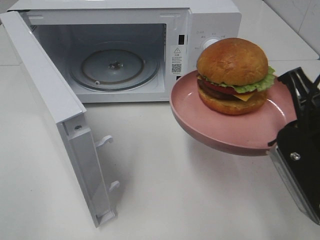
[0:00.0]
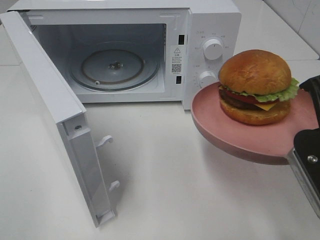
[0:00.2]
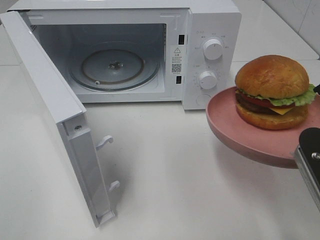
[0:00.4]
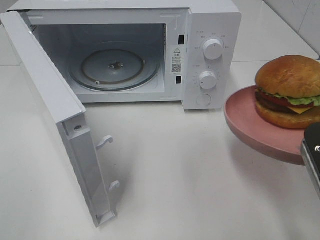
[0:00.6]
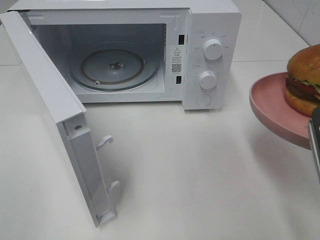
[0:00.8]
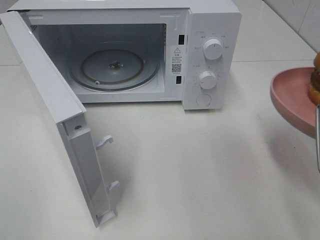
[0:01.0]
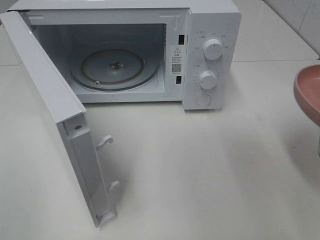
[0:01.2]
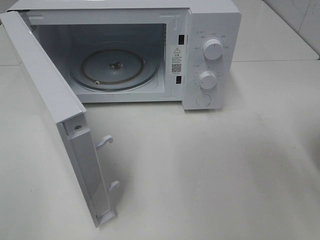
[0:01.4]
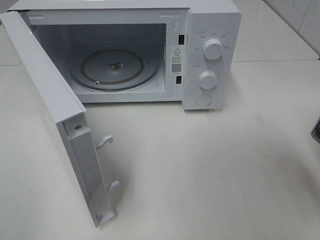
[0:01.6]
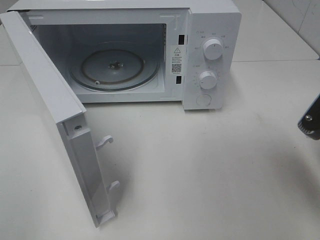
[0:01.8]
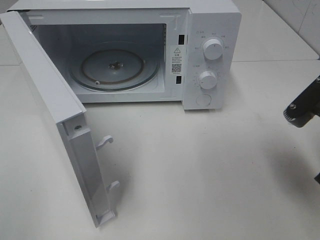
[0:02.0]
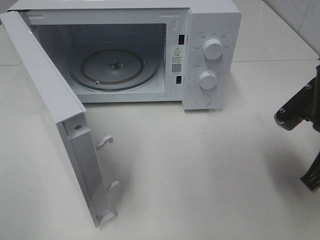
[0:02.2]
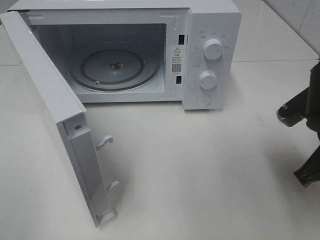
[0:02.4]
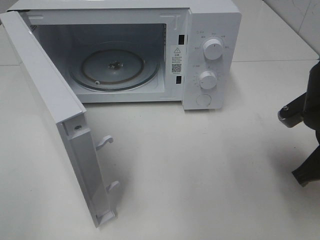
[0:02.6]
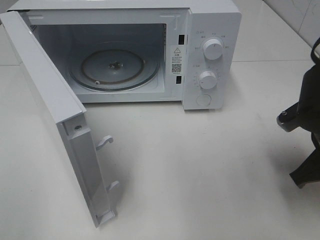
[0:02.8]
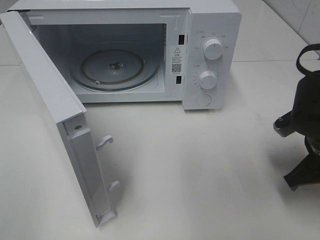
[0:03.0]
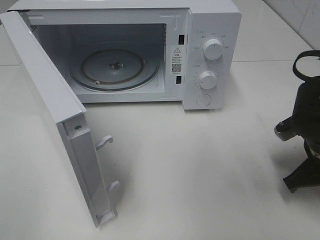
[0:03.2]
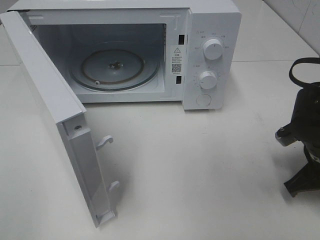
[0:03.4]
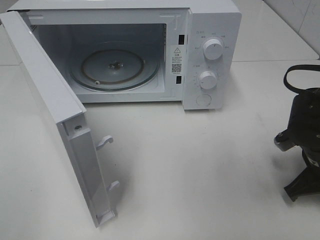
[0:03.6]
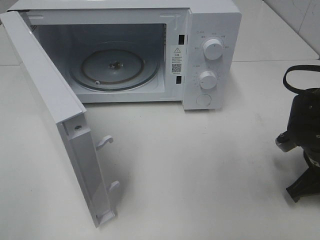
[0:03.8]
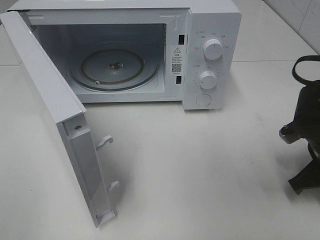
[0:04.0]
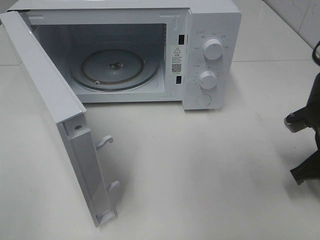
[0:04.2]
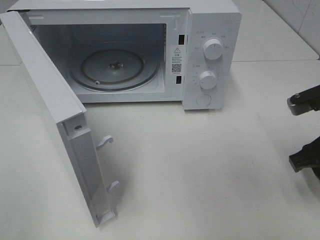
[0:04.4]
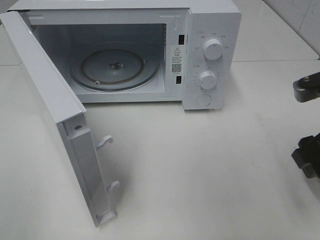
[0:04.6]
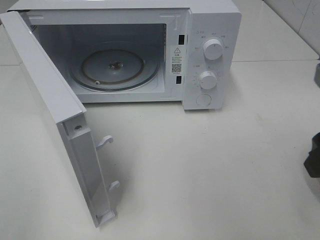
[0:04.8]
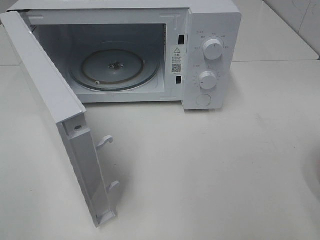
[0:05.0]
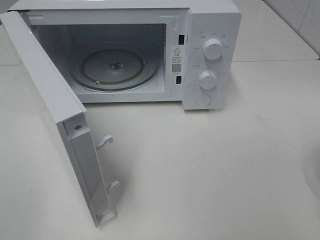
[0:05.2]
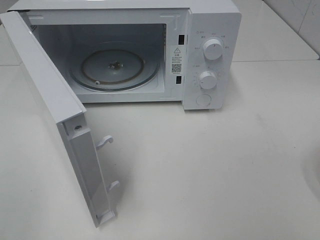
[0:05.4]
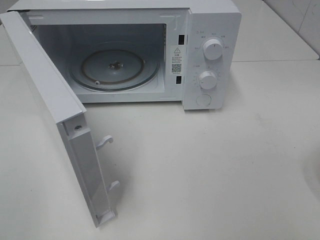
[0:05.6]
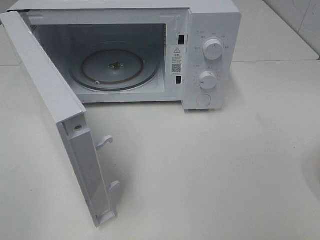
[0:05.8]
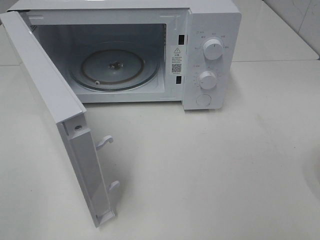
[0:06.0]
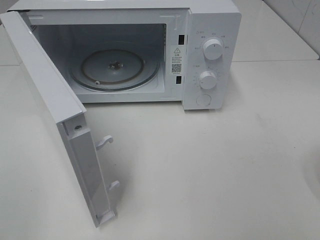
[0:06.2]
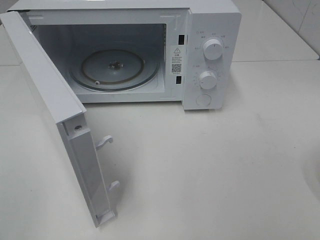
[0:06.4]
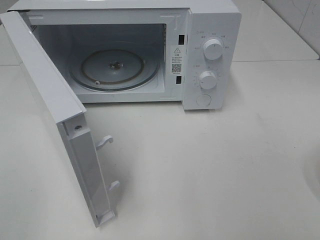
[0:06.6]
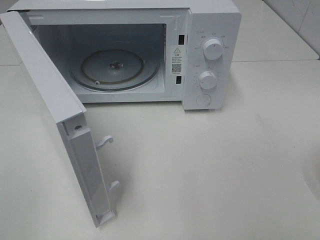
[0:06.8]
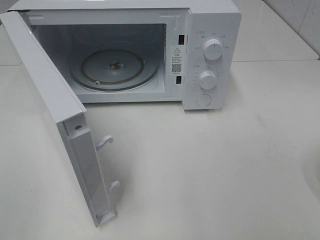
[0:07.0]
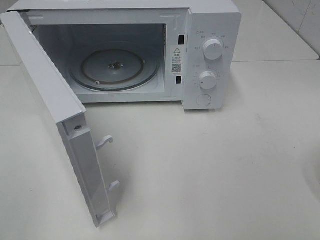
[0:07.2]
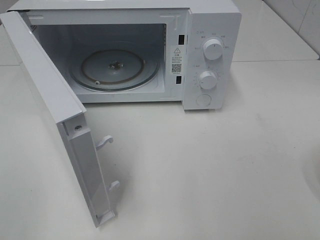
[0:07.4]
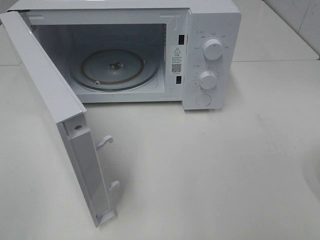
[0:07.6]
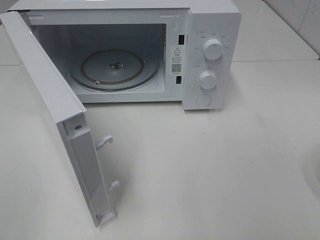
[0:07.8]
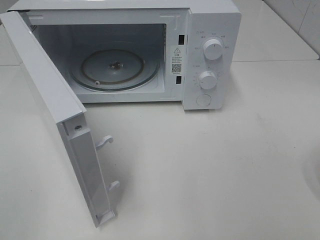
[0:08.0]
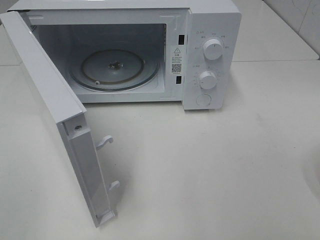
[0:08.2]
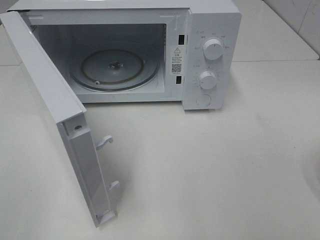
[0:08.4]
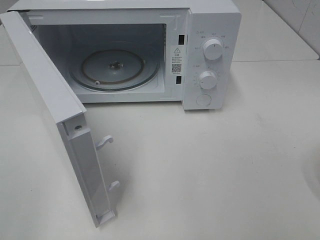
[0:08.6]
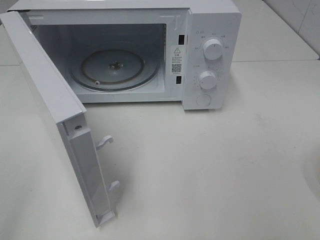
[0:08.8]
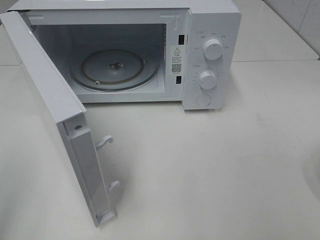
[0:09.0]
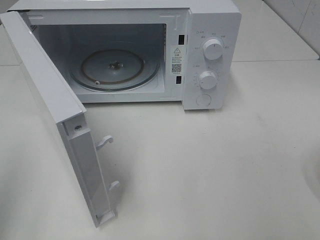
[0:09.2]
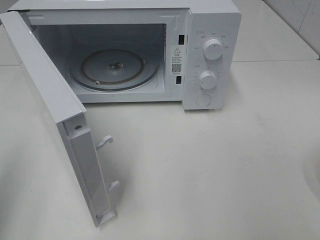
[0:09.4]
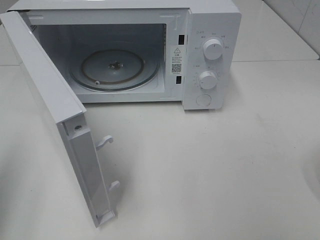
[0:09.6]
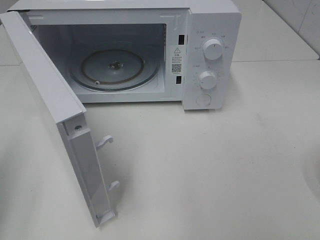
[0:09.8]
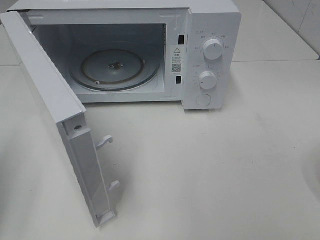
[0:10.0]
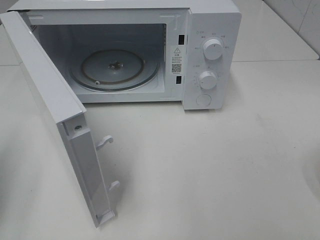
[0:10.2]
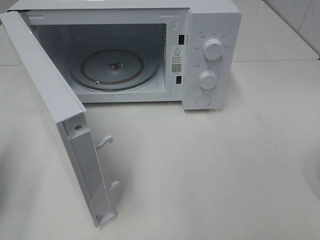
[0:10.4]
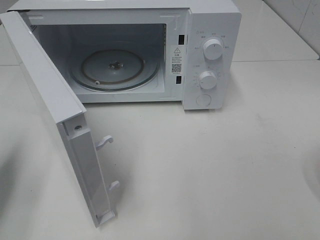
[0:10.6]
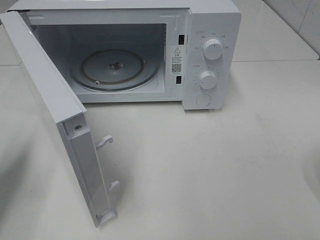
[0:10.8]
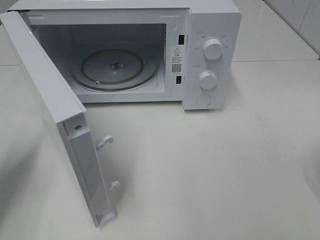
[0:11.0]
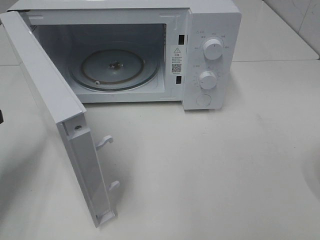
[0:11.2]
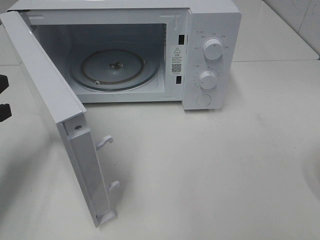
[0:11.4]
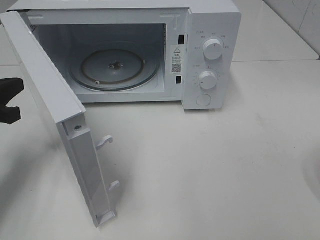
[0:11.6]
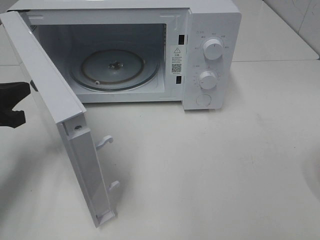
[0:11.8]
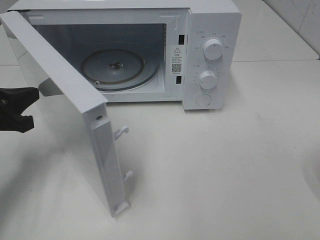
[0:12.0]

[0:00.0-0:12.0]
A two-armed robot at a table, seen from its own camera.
Task of the whole recording: Heat the burger.
Step, 0.0 to 3.8 s: Right hand: place the plate on the table.
0.0 to 1.6 s: The right gripper shifts by about 5 cm.
1.6 to 3.0 s: The right gripper shifts approximately 15 cm downward and forward.
3.0 to 4.4 s: The right gripper opens.
4.4 to 6.0 s: The right gripper goes approximately 25 cm backward and upward.
10.4 to 12.0 s: The left gripper travels forward, to the right and downward by about 10 cm.

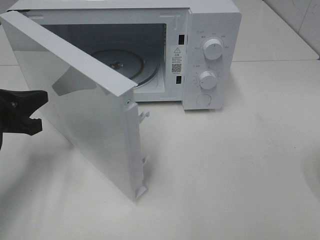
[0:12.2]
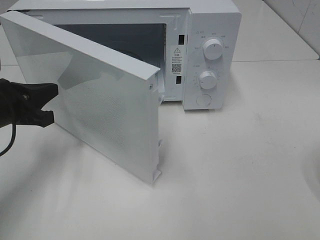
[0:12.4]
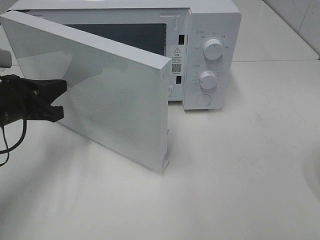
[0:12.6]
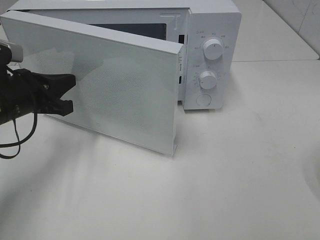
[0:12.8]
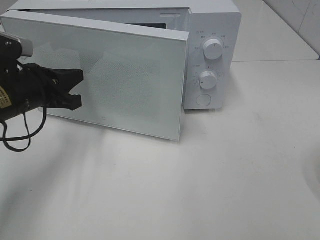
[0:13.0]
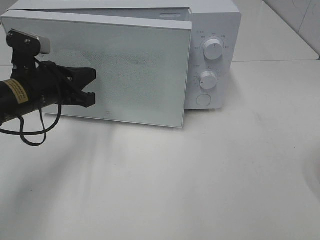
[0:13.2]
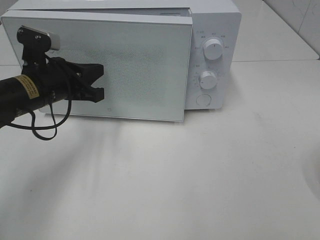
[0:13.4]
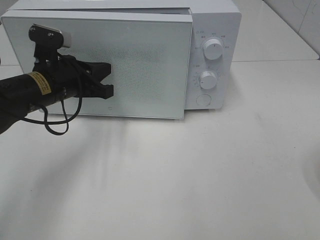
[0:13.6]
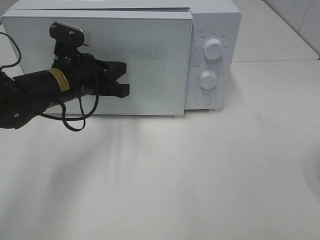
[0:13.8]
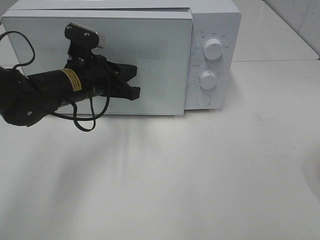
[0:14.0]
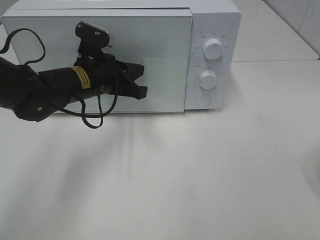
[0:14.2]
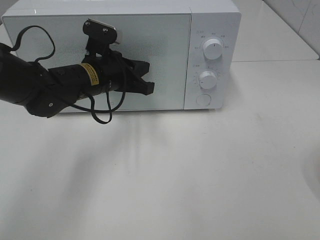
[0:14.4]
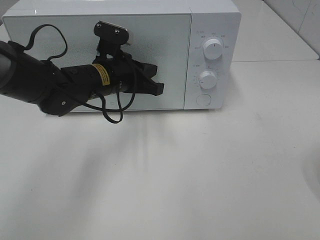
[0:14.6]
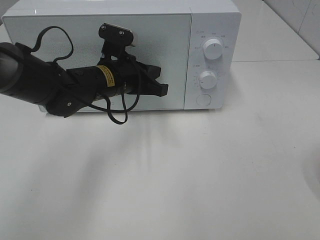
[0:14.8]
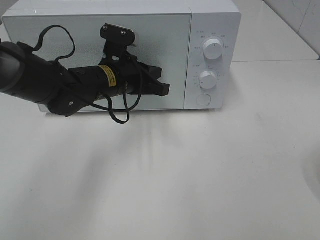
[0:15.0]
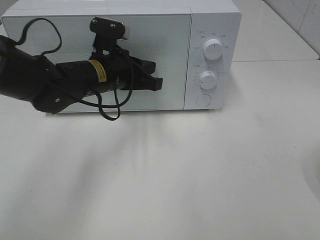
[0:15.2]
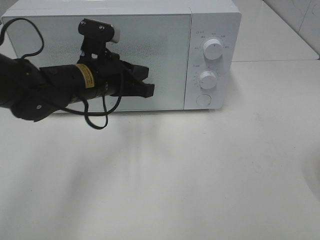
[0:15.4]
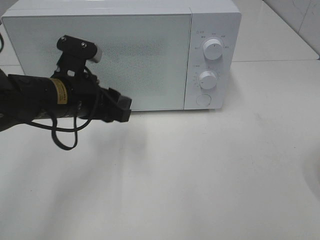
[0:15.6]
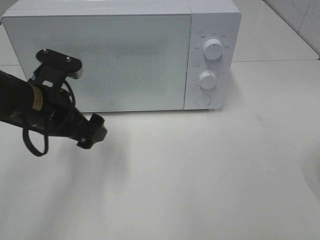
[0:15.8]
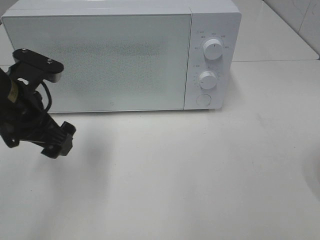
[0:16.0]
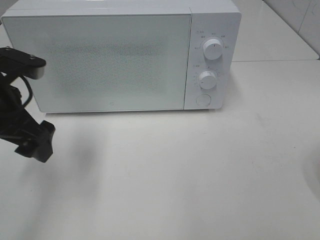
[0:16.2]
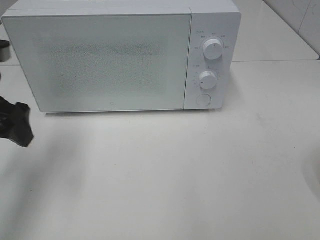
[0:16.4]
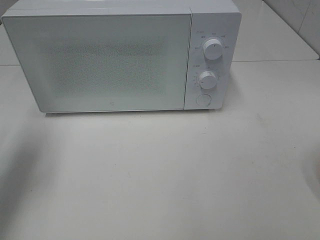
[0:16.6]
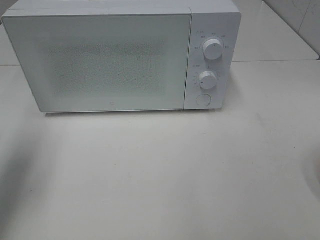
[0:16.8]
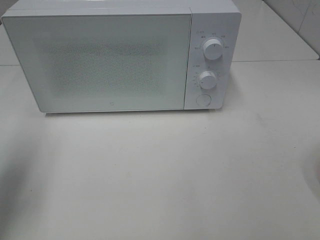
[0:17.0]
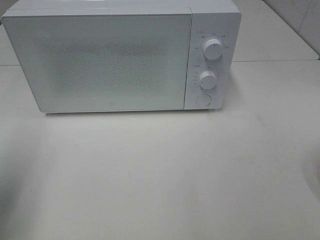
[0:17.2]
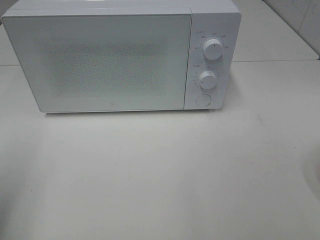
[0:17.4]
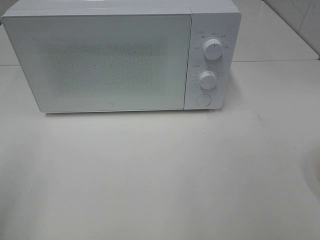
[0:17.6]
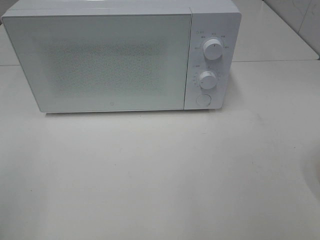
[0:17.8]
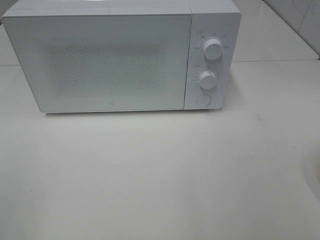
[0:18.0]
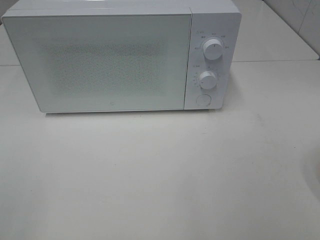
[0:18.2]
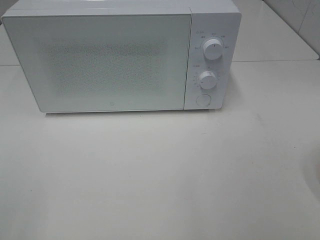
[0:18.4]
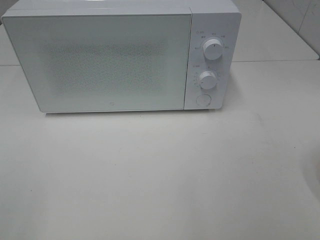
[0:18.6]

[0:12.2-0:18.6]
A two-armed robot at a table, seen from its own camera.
Task of the whole recording: Heat the burger.
Step, 12.2 to 15.2 s: Left hand: close the microwave door.
12.2 to 13.8 s: The left gripper heads to the right and forward, covering approximately 15 cm.
15.4 to 17.0 s: The left gripper travels to the left, backward and upward by about 25 cm, and opens its fingers.
17.0 to 18.6 s: The left gripper is displaced backward by roughly 20 cm.

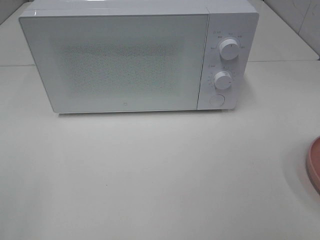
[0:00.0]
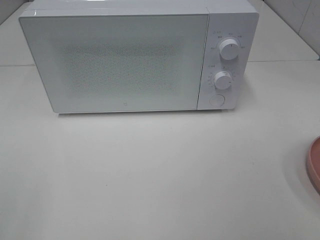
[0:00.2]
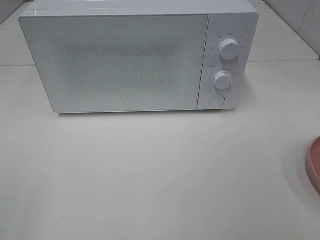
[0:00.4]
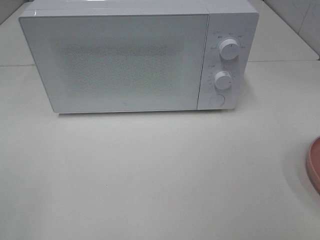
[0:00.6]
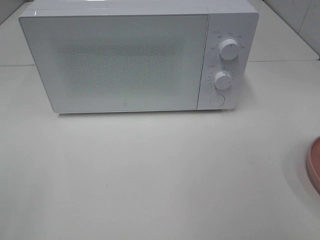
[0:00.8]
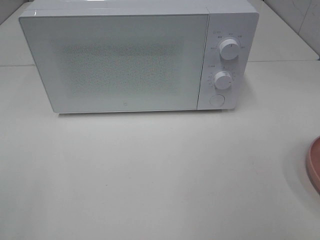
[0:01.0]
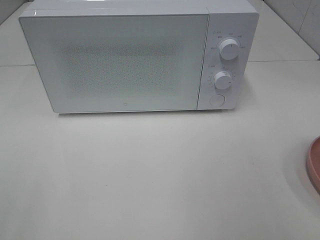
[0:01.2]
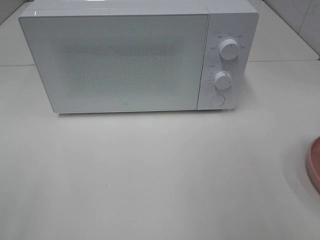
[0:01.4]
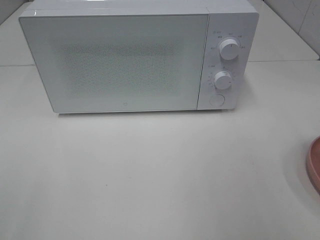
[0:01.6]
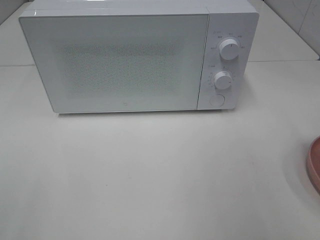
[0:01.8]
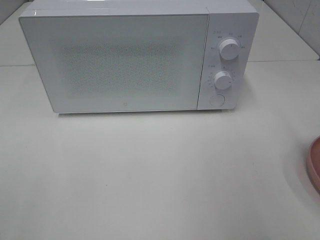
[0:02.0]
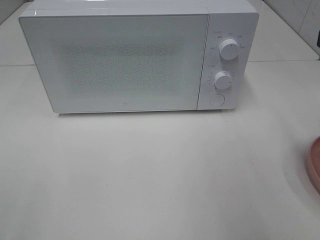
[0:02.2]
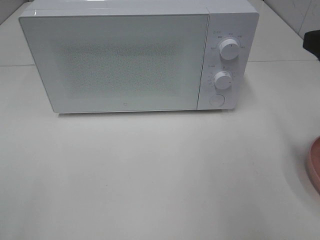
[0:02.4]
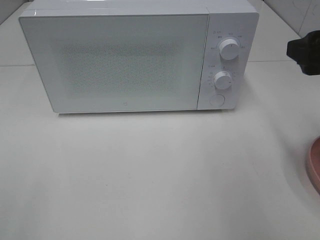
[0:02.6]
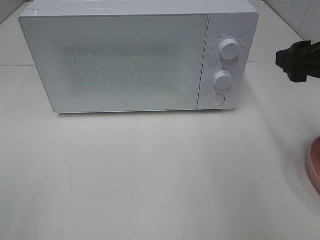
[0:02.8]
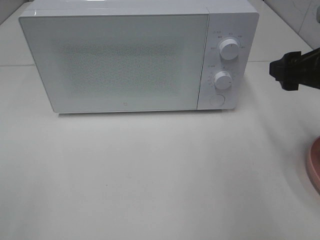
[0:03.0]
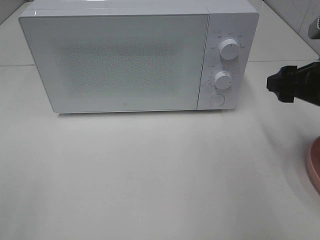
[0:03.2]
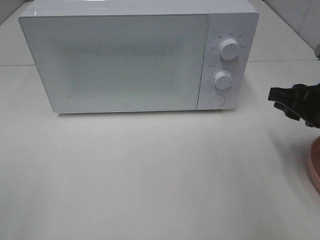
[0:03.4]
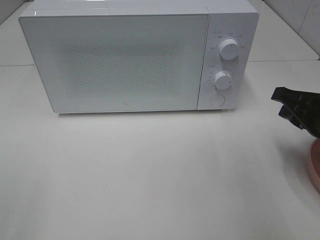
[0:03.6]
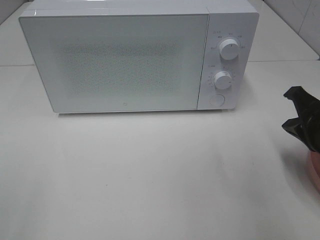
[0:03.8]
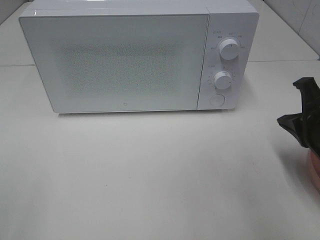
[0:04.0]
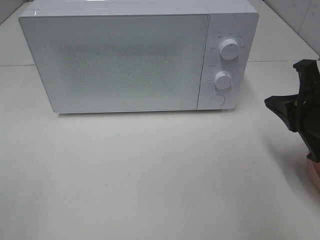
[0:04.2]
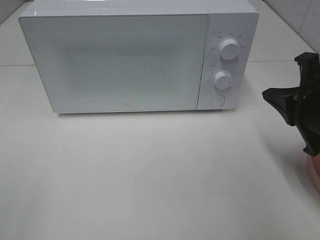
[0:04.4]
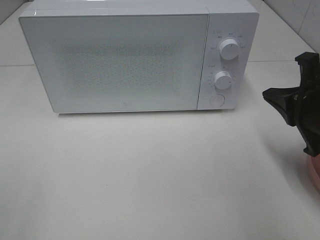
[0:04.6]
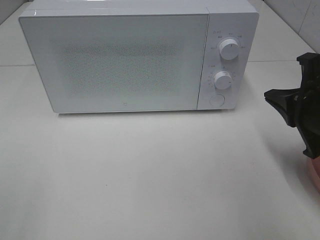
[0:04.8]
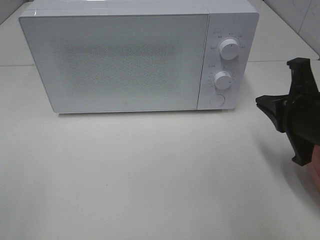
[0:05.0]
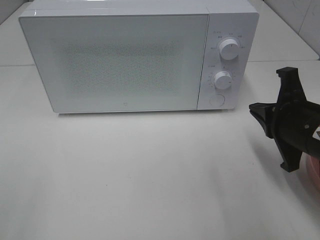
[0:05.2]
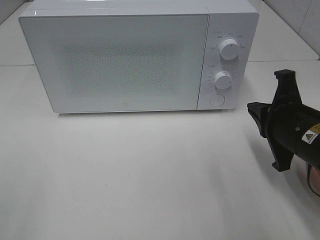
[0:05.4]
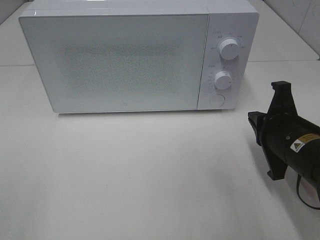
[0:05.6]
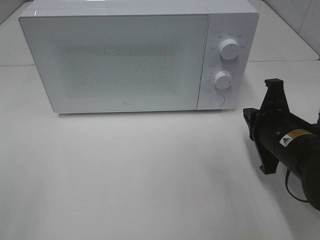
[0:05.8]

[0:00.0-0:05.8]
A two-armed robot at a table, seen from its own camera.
Task of the whole recording: Heat the burger.
1.4 to 2.8 s: The right gripper is displaced forward and downward by about 15 cm.
2.8 to 4.4 s: The right gripper moves downward, roughly 5 cm, and closes its fingers.
4.4 to 5.8 s: The right gripper shifts some 5 cm downward.
